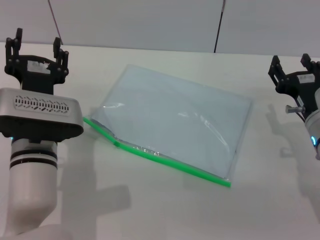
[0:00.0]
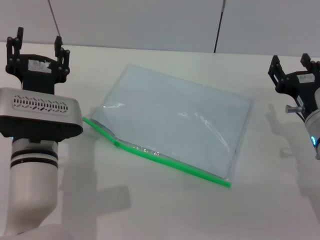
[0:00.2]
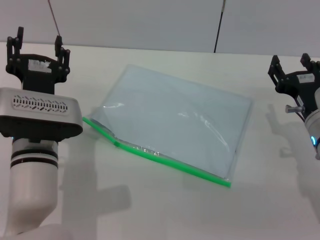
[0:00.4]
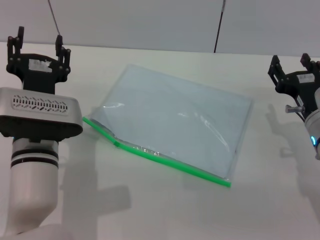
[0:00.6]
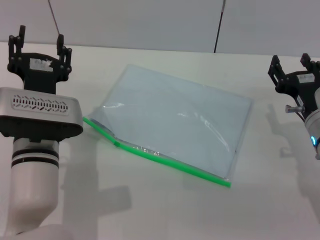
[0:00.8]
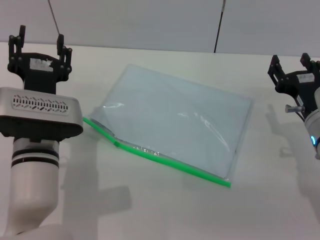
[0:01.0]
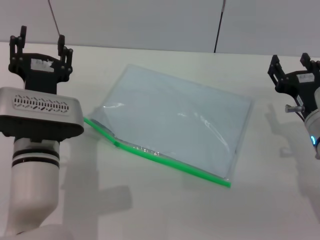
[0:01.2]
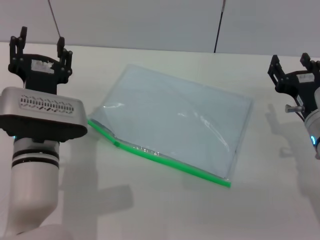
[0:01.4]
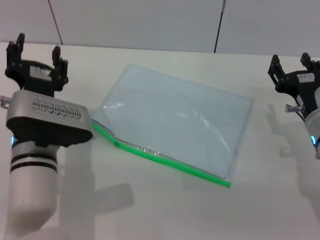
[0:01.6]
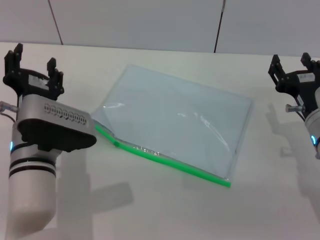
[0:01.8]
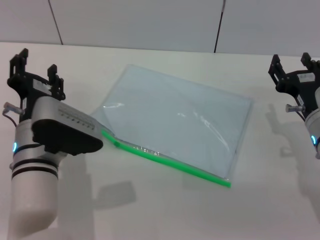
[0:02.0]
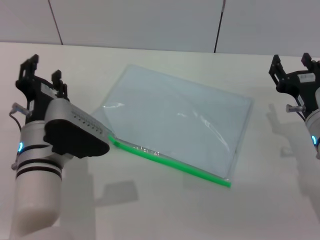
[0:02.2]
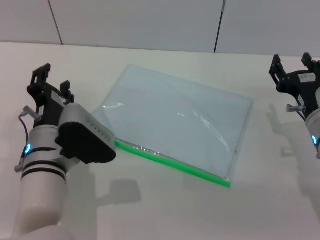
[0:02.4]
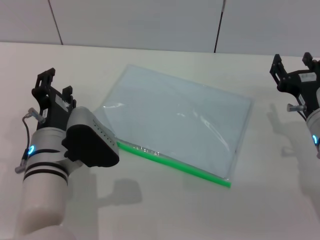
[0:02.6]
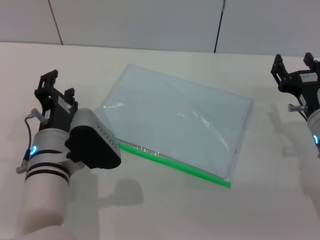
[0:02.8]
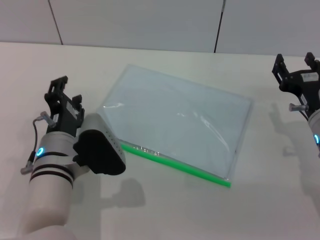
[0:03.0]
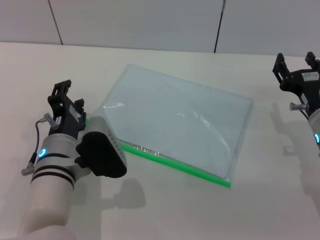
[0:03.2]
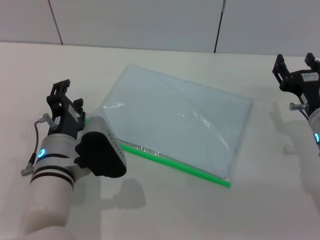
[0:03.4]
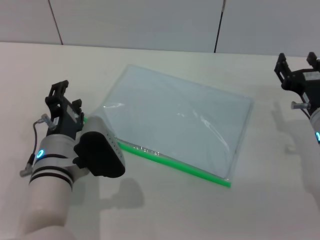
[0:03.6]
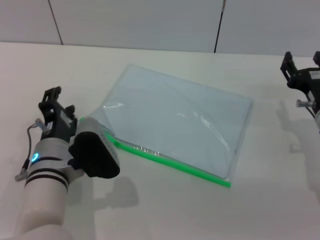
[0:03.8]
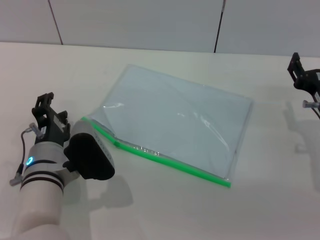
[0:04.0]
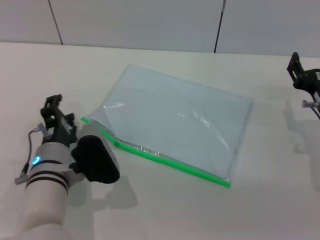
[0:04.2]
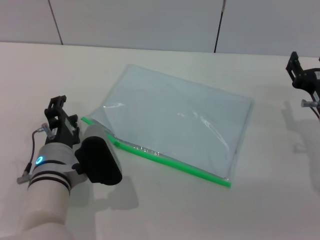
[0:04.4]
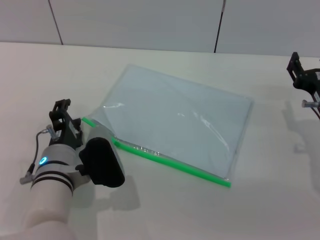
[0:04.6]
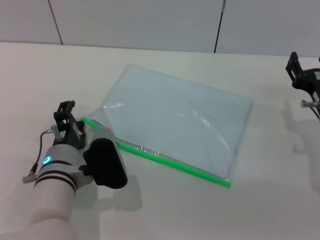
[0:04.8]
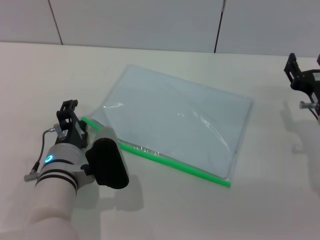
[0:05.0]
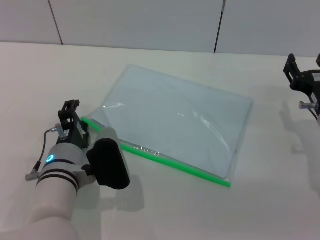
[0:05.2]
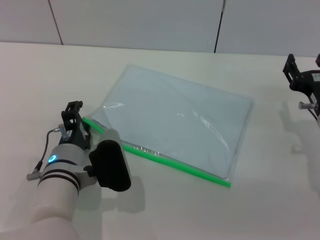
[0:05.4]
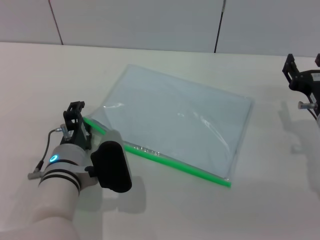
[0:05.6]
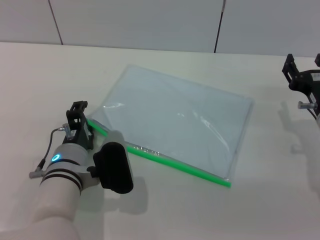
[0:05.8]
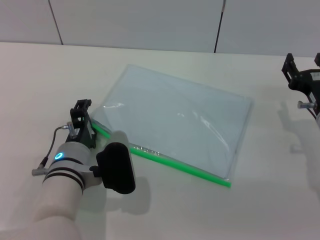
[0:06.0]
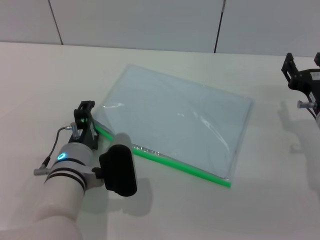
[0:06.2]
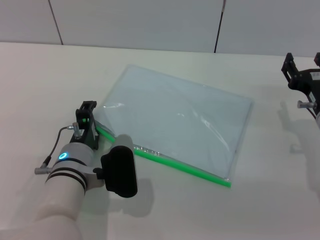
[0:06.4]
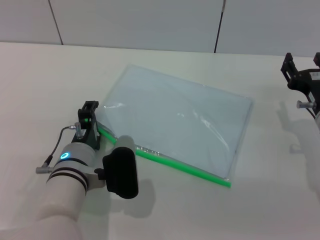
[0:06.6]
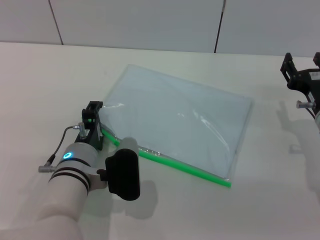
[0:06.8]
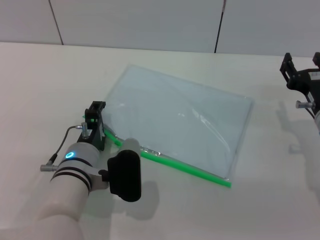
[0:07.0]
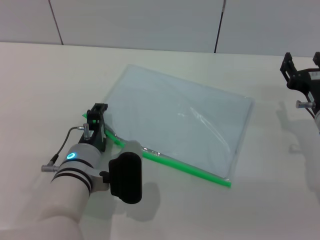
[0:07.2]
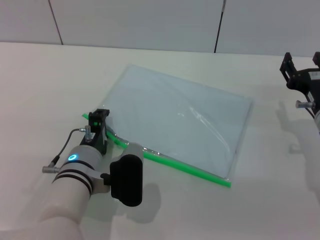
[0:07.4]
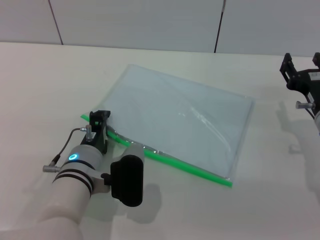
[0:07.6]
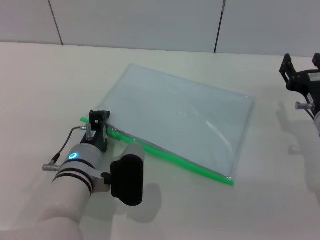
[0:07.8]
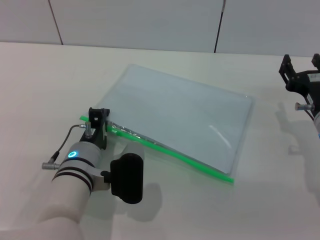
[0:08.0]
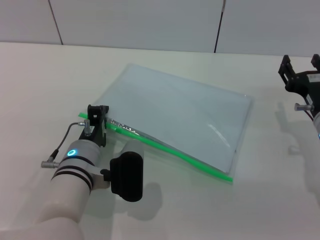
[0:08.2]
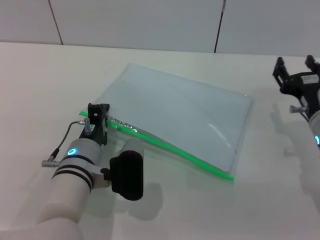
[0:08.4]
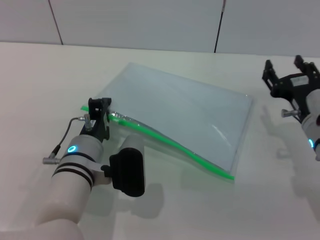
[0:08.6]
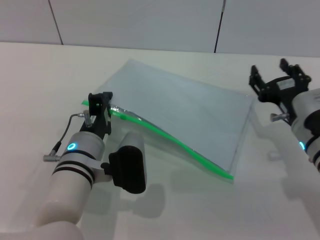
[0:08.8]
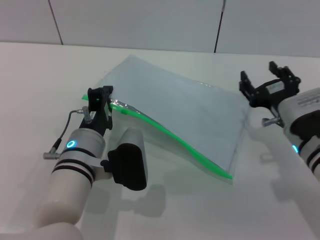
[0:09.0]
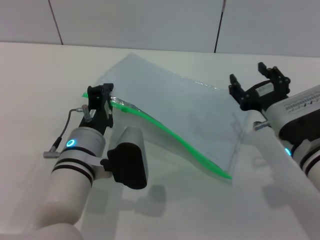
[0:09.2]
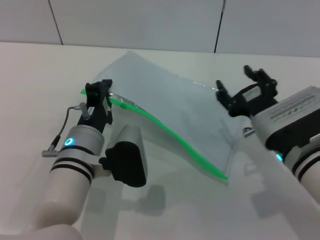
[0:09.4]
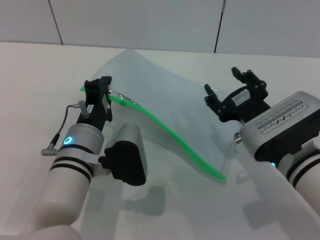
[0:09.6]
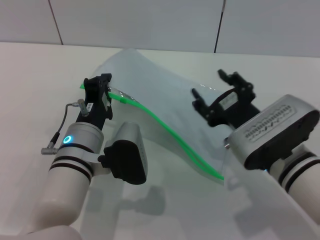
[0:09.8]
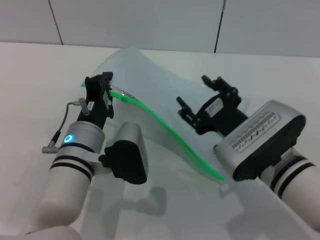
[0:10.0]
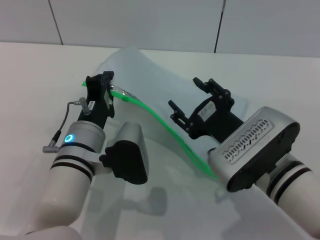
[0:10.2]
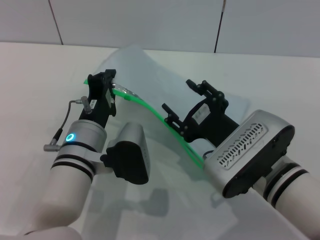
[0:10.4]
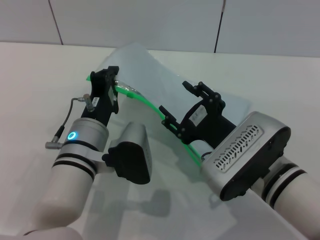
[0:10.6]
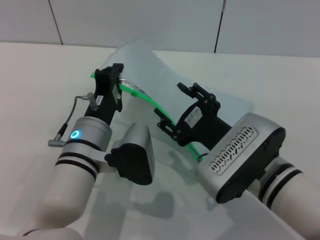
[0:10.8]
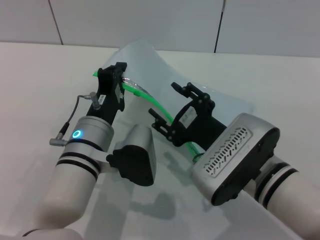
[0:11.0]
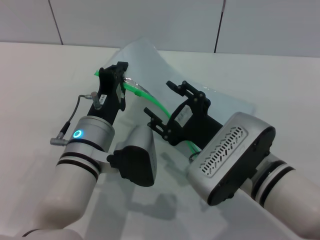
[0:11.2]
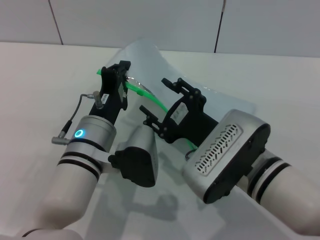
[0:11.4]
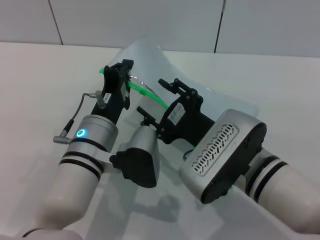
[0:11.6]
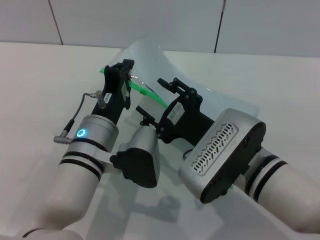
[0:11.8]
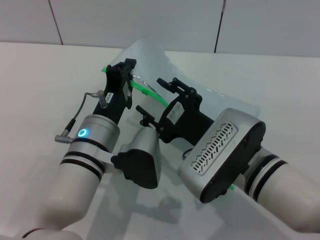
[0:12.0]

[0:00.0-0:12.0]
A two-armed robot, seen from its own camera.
Step, 0:00.0 to 0:08.6: Pick up the transparent plastic bag with the left gripper.
0:00.0 to 0:01.6: The grippers stay close to where they were, moving slightly.
0:03.0 to 0:06.0: The grippers stay close to where they were, moving slightly.
0:06.0 to 0:07.6: The grippers make only small movements.
0:07.6 to 0:09.0: The left gripper closes its fingers.
0:09.0 to 0:10.4: The right gripper goes approximately 10 cm to the left and backward.

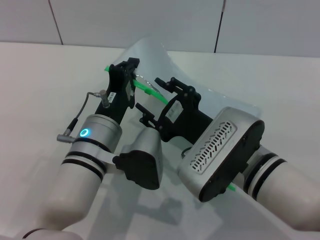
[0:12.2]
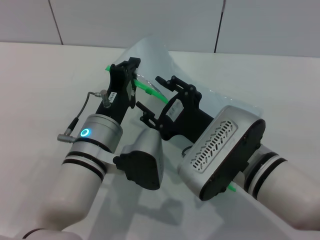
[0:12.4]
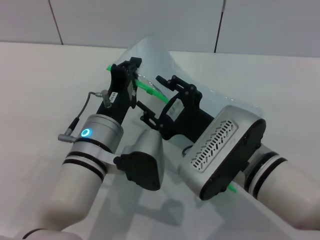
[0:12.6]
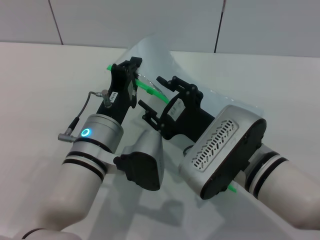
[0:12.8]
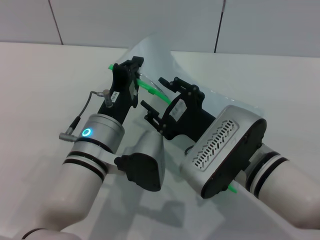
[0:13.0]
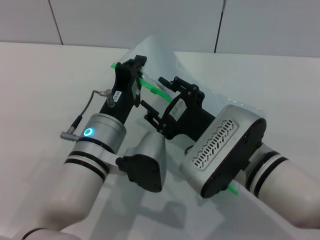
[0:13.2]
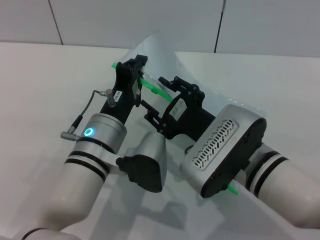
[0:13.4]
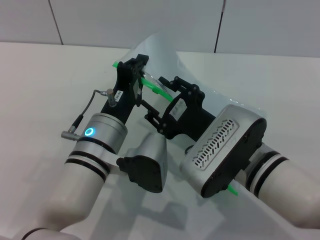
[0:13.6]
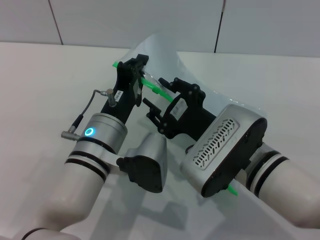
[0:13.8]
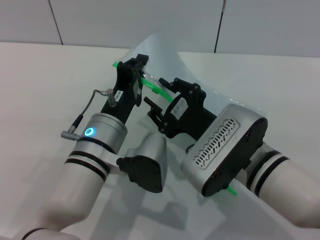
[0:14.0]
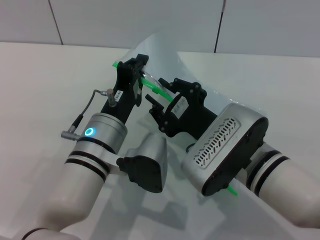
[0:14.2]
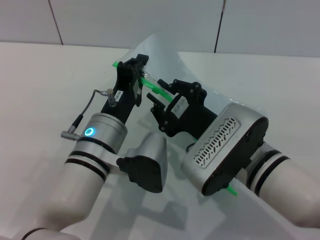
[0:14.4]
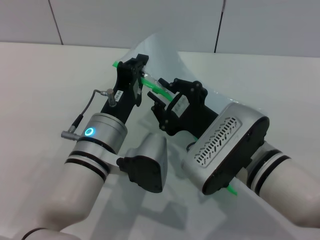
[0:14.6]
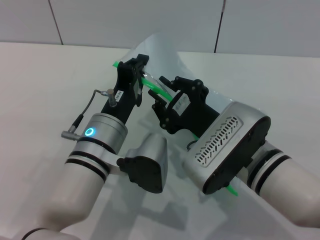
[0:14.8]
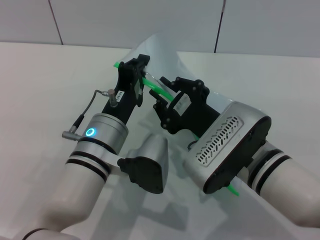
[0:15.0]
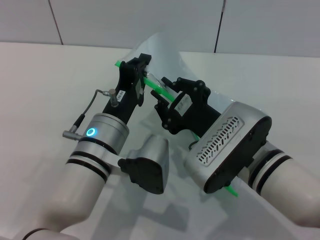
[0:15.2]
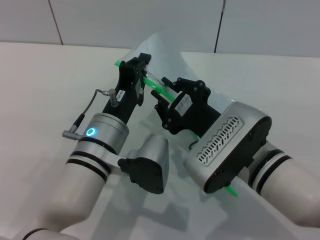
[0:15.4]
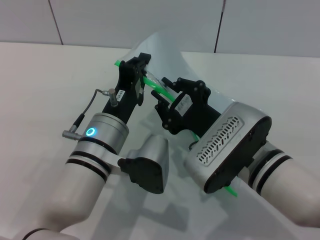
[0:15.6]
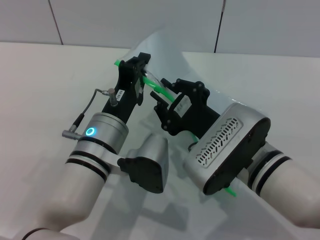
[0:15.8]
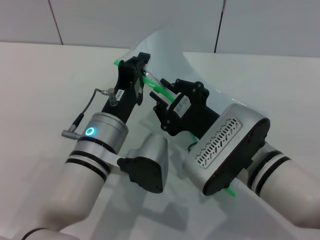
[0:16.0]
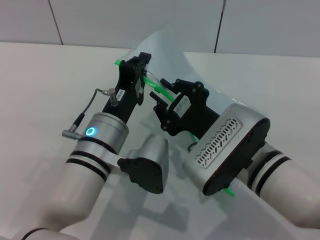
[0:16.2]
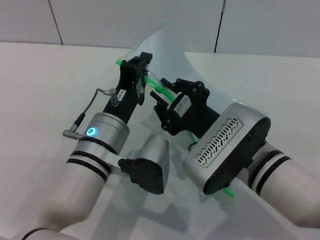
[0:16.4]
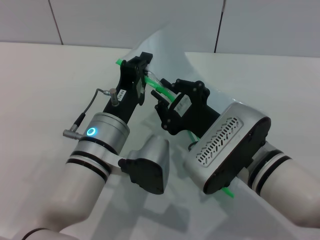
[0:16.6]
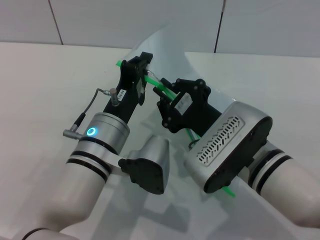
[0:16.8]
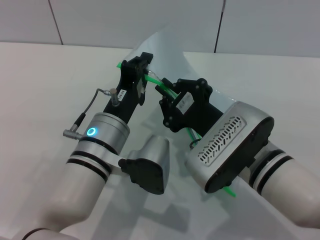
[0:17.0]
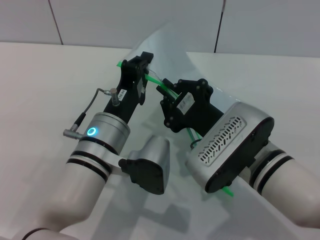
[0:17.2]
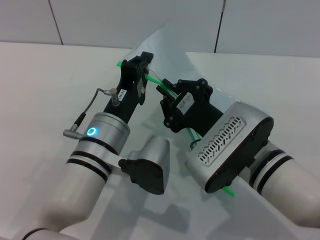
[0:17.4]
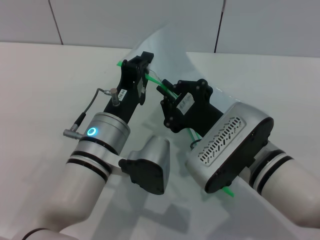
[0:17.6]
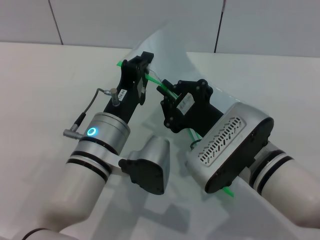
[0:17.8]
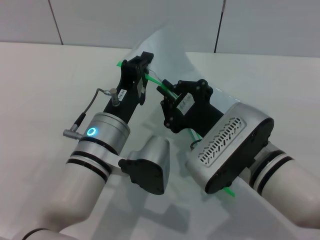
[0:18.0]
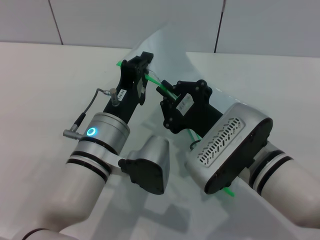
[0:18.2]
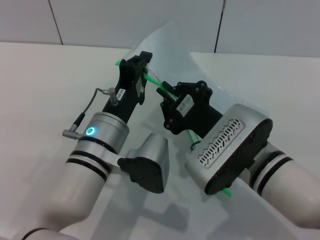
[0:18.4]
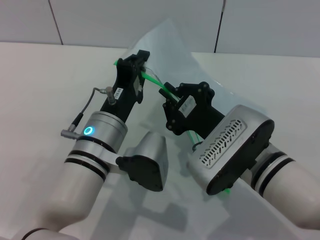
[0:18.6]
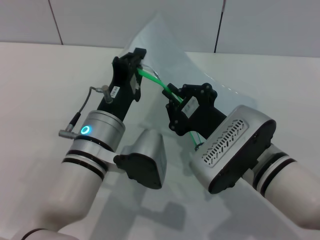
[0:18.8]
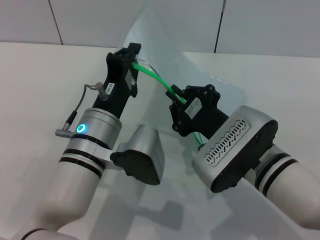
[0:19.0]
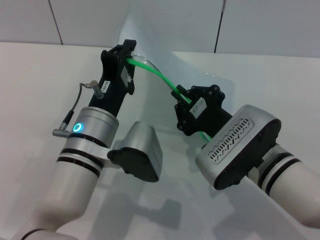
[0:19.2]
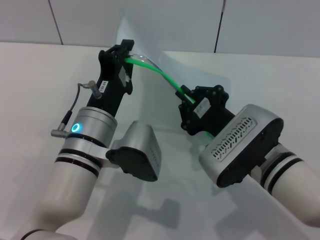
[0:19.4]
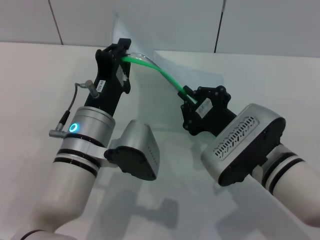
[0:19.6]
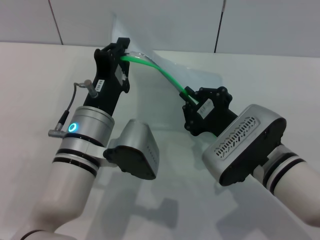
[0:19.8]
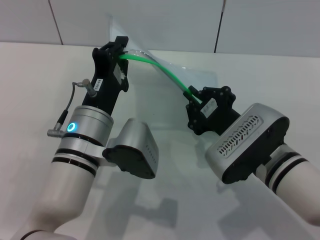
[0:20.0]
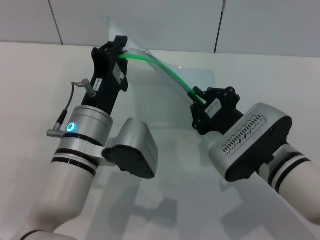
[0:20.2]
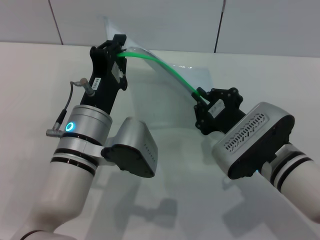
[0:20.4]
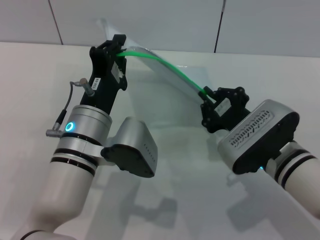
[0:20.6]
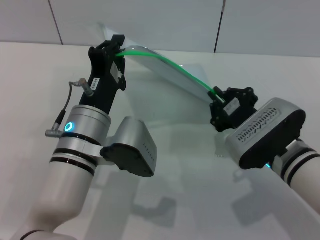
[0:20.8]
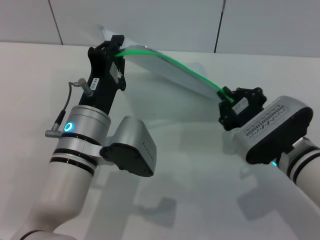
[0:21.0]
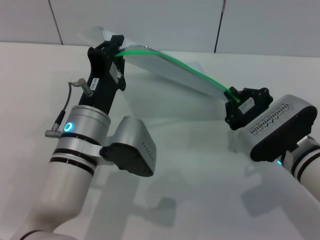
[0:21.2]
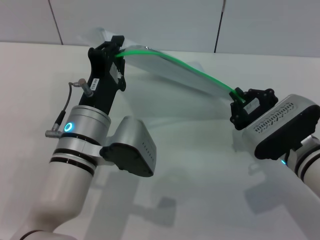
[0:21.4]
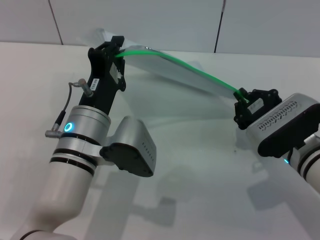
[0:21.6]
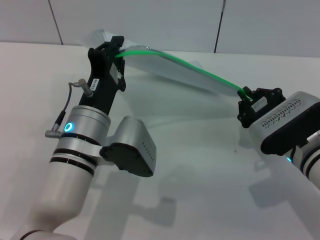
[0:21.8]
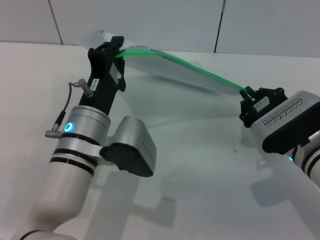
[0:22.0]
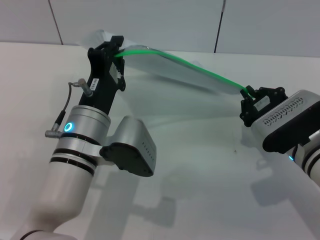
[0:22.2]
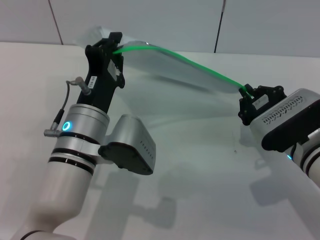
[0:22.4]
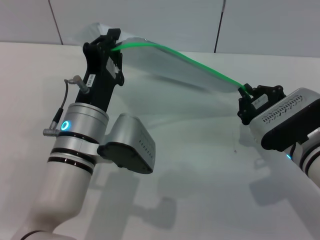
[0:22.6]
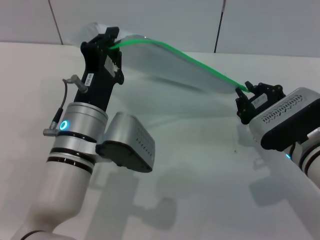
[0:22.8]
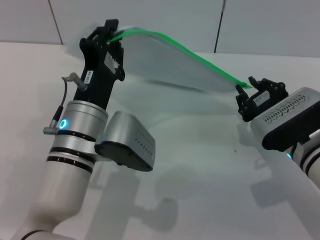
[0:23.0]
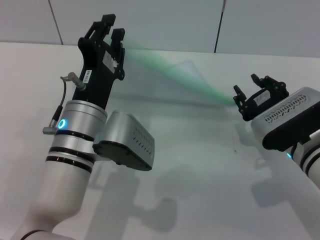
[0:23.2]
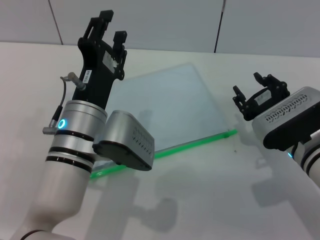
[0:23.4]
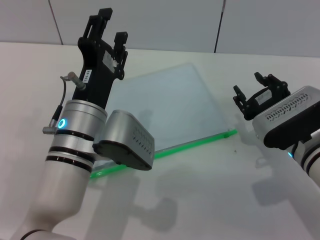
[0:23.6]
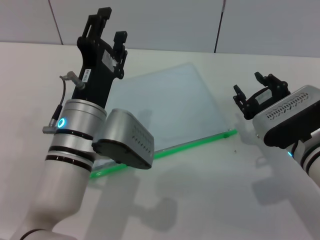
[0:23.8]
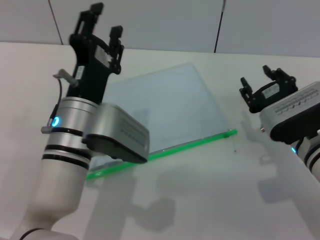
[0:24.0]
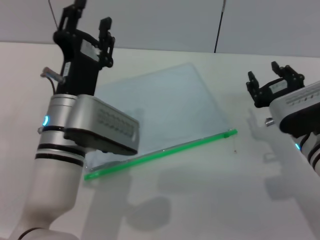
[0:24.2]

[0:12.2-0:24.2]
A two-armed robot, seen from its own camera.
Step, 0:12.2 to 0:23.0: Pulling up the zipper on the transparent plastic bag with the right gripper to close it.
0:12.2 to 0:13.8: Both grippers stay put.
0:13.8 to 0:15.2: The right gripper closes its fingers.
0:15.2 to 0:18.2: The two grippers keep their place.
0:19.8 to 0:21.2: The right gripper shifts about 5 cm to the right.
0:21.2 to 0:22.6: The grippers move only a little.
0:22.6 to 0:24.2: The left gripper opens. Meanwhile the right gripper opens up.
